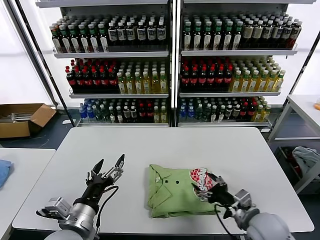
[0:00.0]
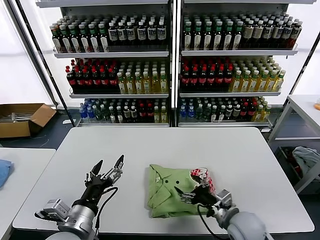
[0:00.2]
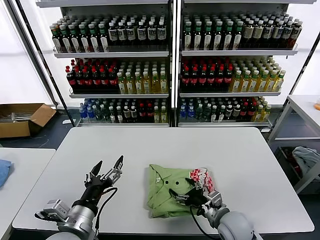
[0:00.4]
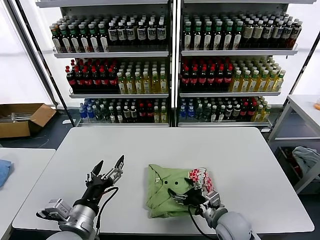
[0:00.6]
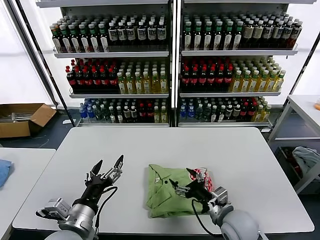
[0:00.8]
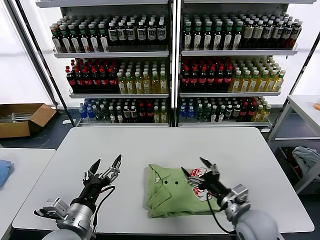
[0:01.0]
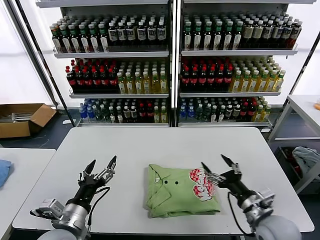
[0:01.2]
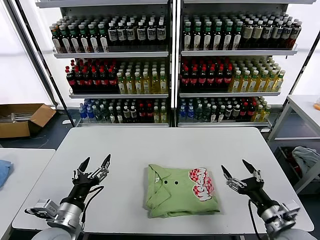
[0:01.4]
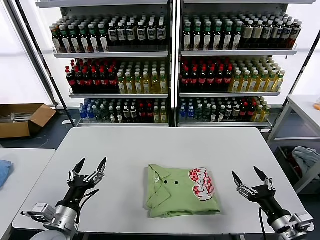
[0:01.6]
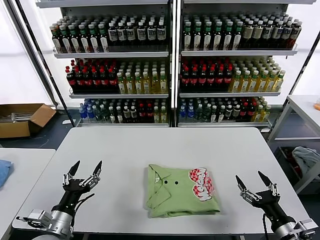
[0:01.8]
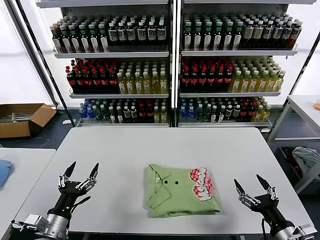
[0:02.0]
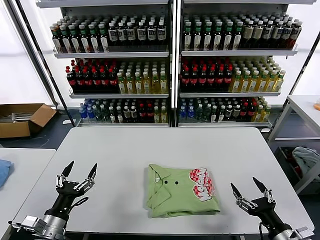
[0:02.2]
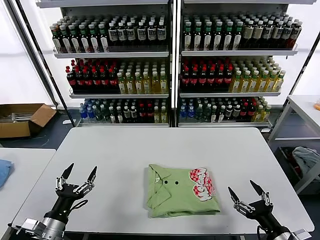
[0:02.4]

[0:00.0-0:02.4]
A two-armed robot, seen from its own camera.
Task of the whole recording: fold and organize the clothes.
0:00.0 to 0:01.2: The right gripper moves approximately 10 cm to the left and comes back.
0:01.2 to 0:02.4: The right gripper travels backward and to the right by roughly 10 cm. Meanwhile the left gripper goes about 10 cm to the left and downward.

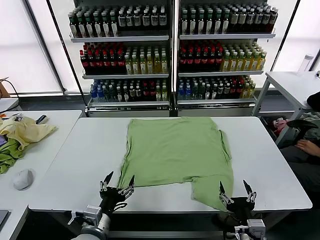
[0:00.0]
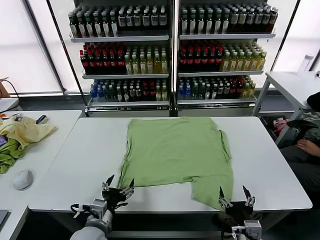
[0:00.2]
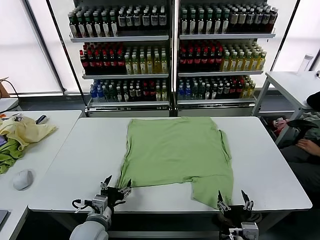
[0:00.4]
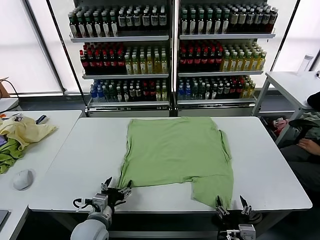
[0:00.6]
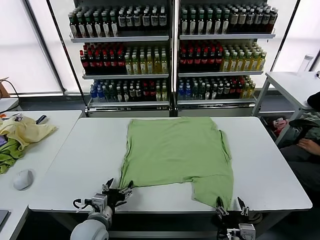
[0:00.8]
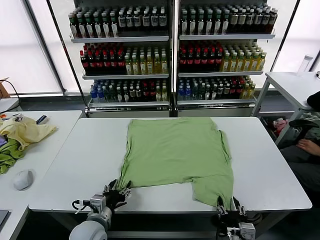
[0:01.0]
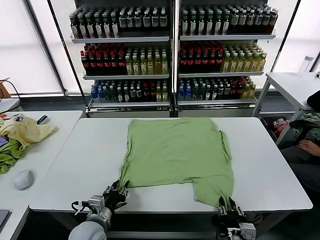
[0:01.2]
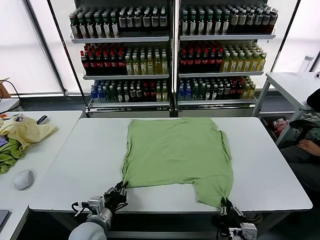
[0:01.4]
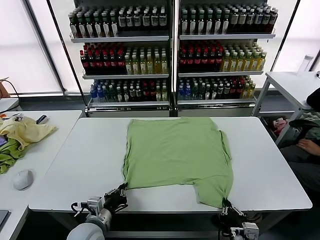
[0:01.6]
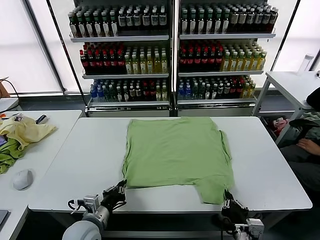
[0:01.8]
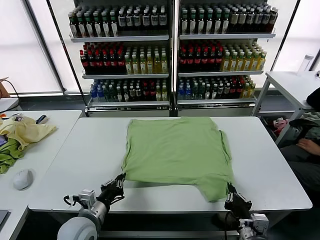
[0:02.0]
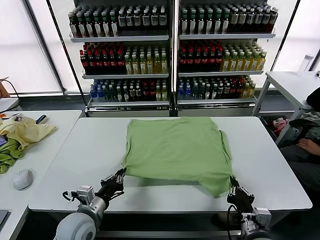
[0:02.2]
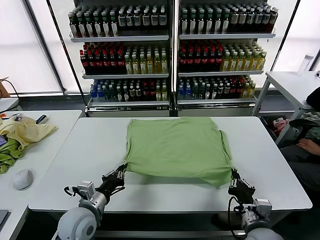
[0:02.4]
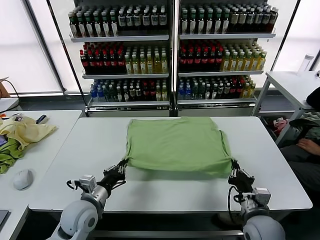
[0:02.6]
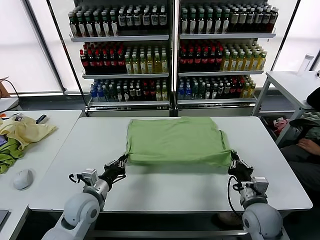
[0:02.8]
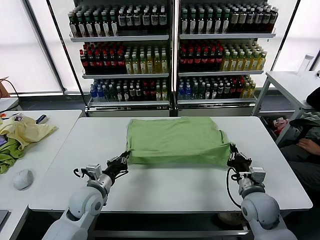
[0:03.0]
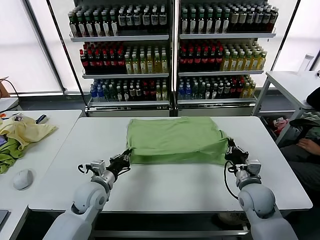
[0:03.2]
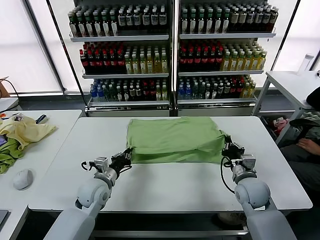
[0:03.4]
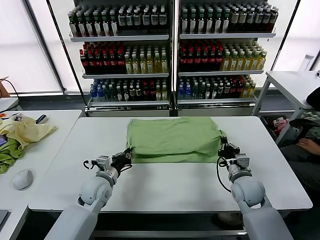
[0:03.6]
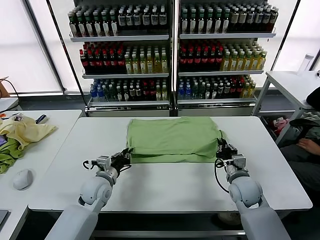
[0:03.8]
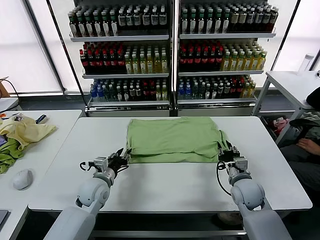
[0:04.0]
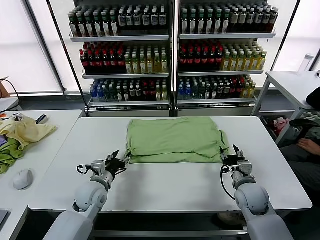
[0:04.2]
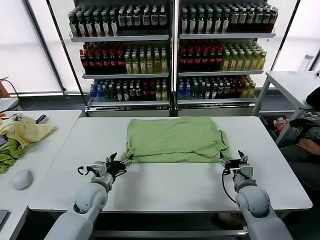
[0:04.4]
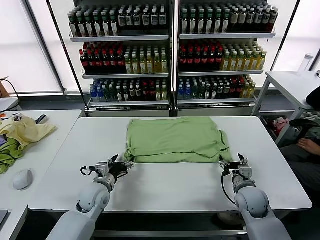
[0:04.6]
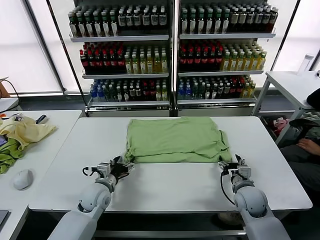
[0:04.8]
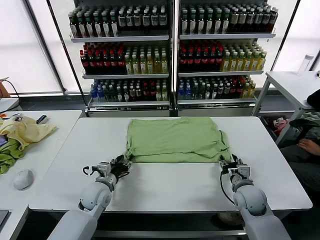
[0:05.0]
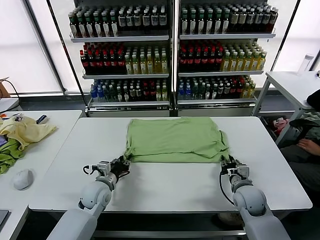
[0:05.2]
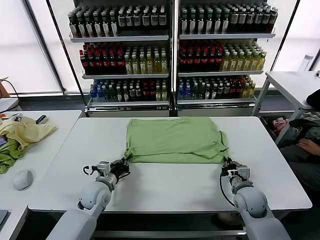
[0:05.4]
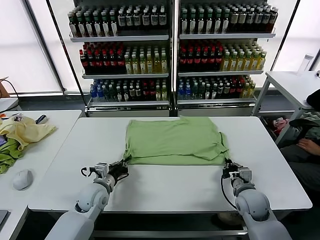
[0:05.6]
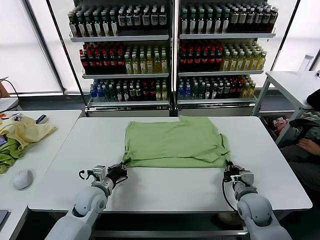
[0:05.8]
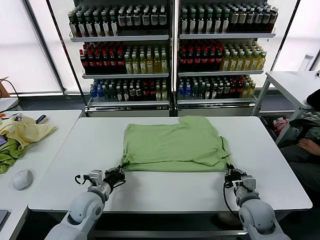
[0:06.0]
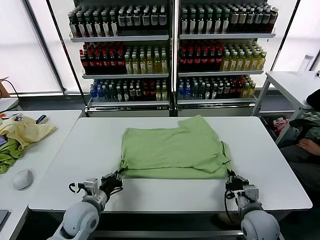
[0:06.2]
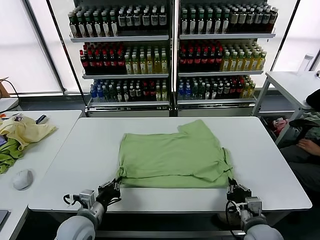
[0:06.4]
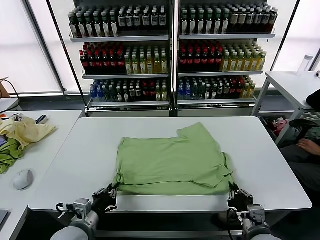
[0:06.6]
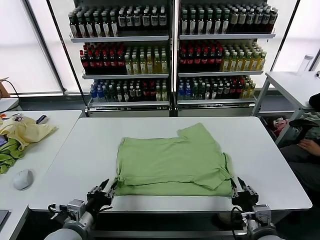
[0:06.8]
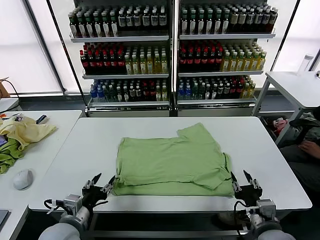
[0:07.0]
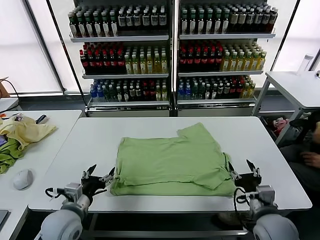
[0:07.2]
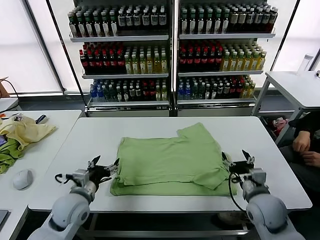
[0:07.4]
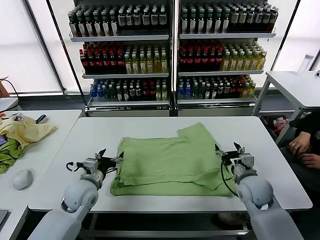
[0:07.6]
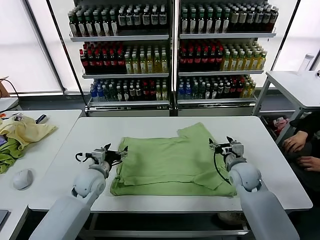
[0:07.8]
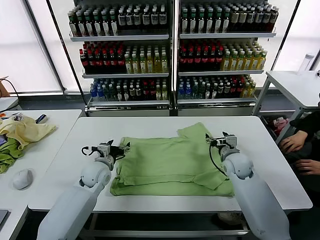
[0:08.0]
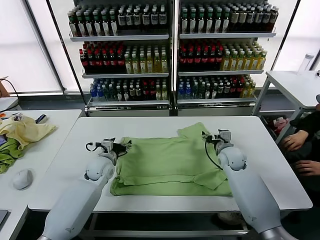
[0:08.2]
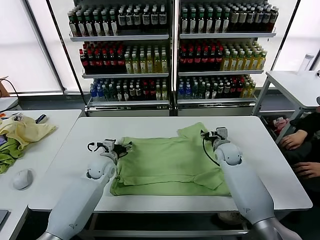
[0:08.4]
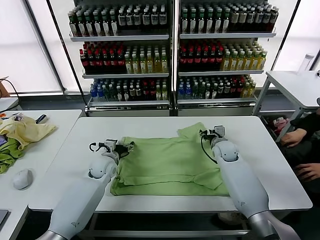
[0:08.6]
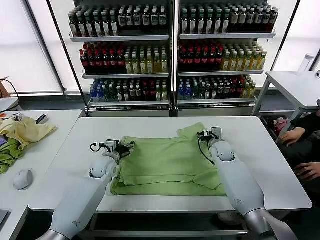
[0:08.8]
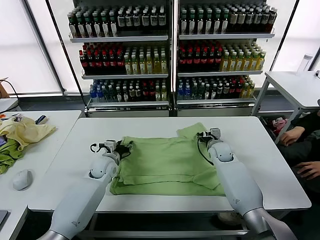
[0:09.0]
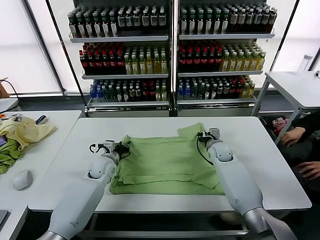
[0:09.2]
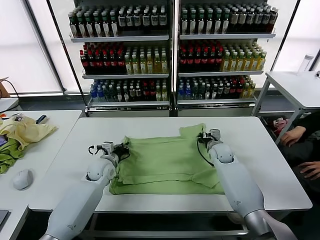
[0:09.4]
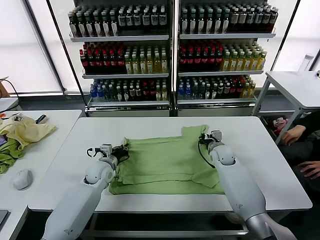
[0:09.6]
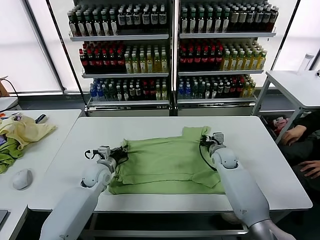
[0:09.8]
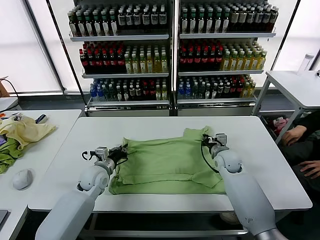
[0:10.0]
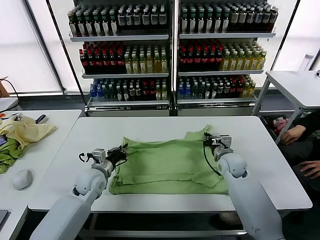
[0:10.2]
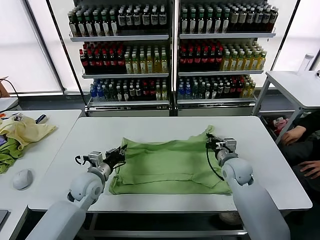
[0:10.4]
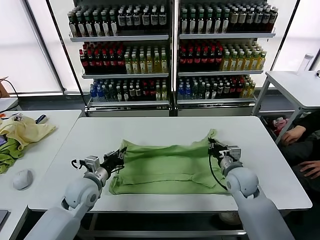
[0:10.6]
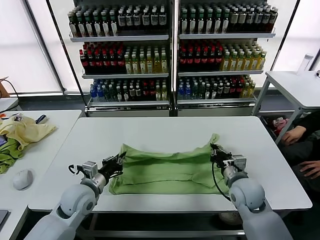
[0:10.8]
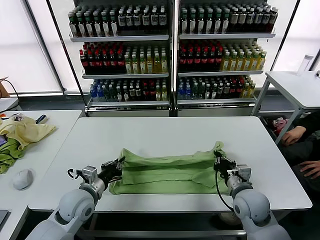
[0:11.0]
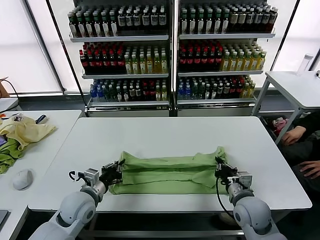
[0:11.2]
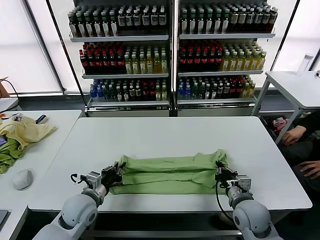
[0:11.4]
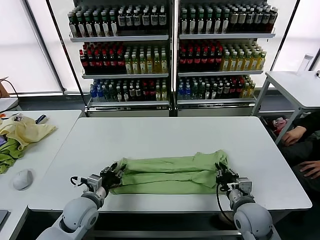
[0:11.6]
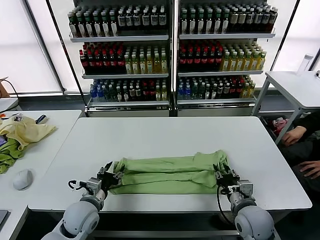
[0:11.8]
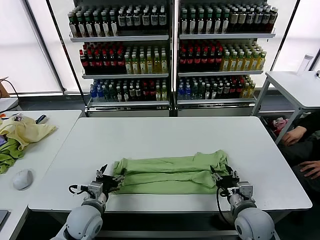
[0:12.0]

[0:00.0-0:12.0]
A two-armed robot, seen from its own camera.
Task of the whole recording: fold and organize the clothes.
Step, 0:00.0 to 0:01.4: use both grippers simultaneously to clamp the lower edge of the clothing fabric.
Step, 0:01.8 to 0:04.0: use both grippers to drag the lower edge of the fabric forward and fold it over the upper edge.
Step, 0:04.2 to 0:06.8: Drag the clothes downward with both gripper.
Step, 0:07.0 to 0:09.6: use both grippers simultaneously to clamp the upper edge of the clothing fabric.
Step, 0:09.8 to 0:11.6: use both grippers to drag the upper edge of the fabric backward and fold it over the lower edge.
0:01.6 to 0:03.0: The right gripper is displaced forward by about 15 cm, while the left gripper is displaced forward by some 10 cm.
0:03.0 to 0:04.4: The right gripper opens, while the left gripper opens.
0:04.4 to 0:06.0: The left gripper closes up, while the right gripper moves backward, some 5 cm, and closes up.
0:06.0 to 0:07.6: The left gripper moves approximately 15 cm backward and comes back, and opens its fingers, while the right gripper shifts roughly 10 cm forward, and opens.
0:07.6 to 0:09.0: Both grippers travel together forward, roughly 15 cm. The right gripper closes up, while the left gripper closes.
0:09.0 to 0:10.4: Both grippers travel together backward, approximately 10 cm. The left gripper closes, while the right gripper closes up.
0:10.4 to 0:12.0: The left gripper goes roughly 10 cm backward, and opens its fingers; the right gripper travels backward by roughly 15 cm, and opens its fingers.

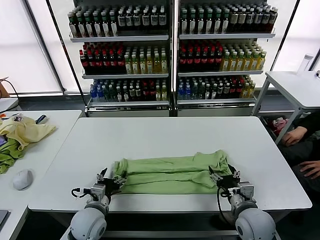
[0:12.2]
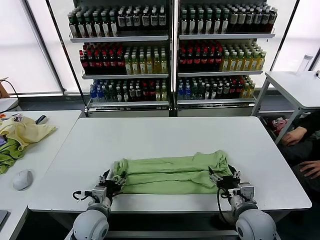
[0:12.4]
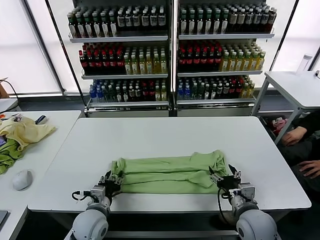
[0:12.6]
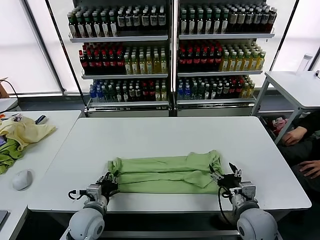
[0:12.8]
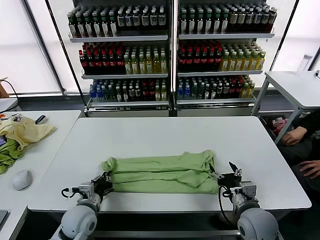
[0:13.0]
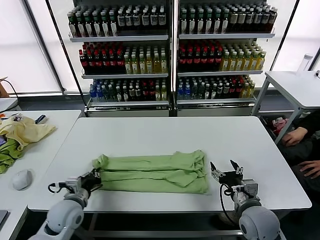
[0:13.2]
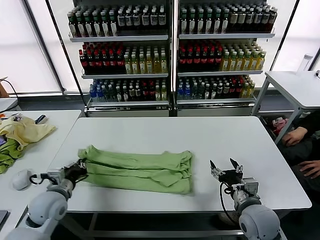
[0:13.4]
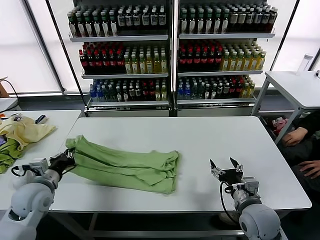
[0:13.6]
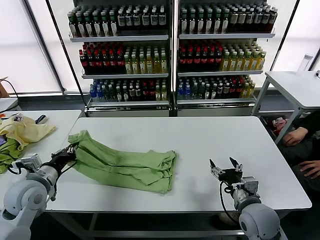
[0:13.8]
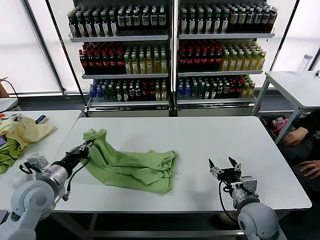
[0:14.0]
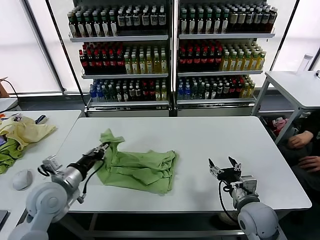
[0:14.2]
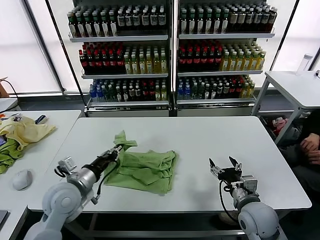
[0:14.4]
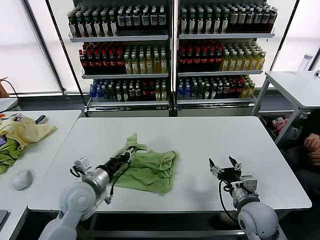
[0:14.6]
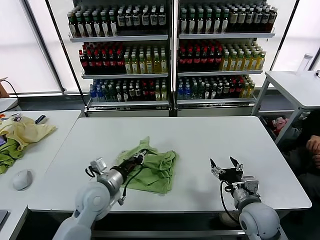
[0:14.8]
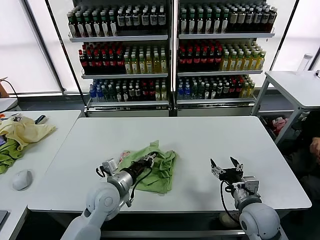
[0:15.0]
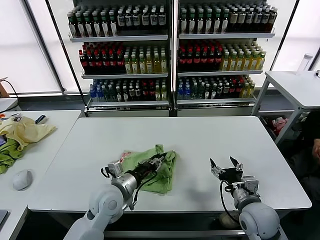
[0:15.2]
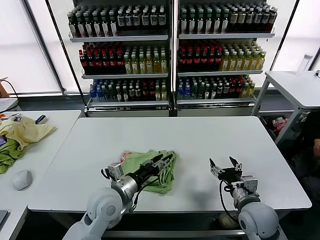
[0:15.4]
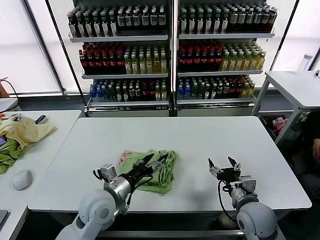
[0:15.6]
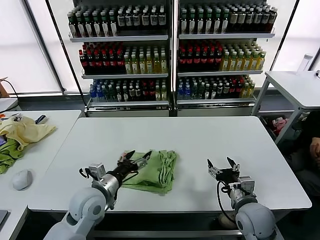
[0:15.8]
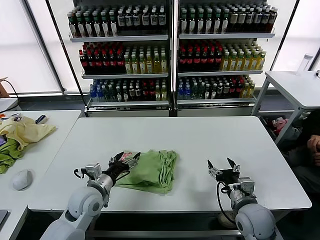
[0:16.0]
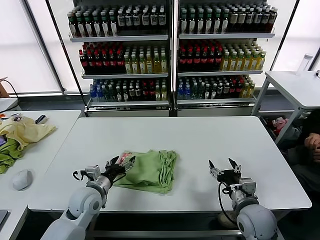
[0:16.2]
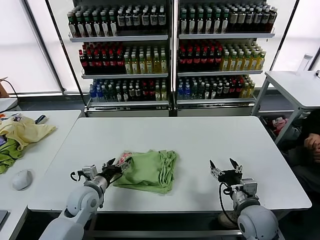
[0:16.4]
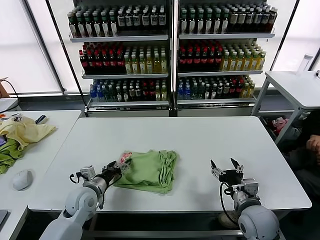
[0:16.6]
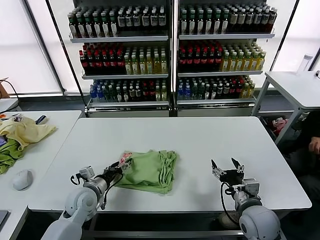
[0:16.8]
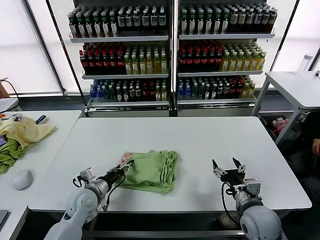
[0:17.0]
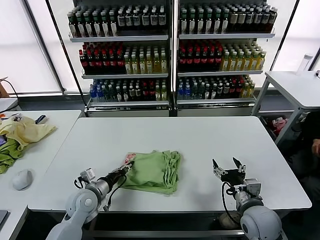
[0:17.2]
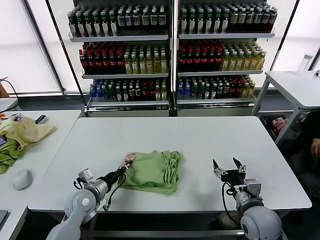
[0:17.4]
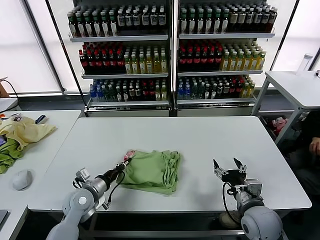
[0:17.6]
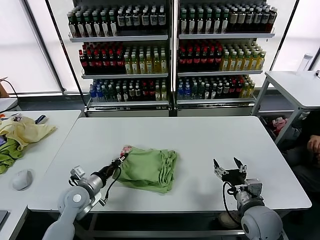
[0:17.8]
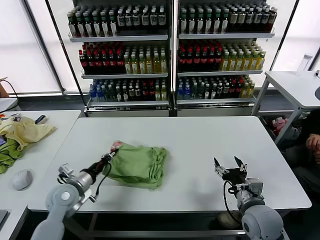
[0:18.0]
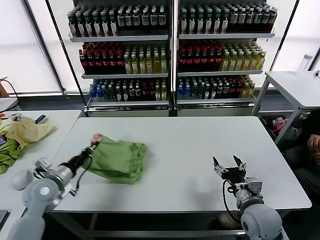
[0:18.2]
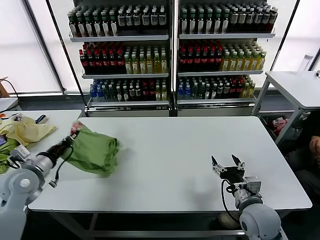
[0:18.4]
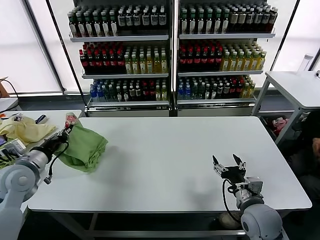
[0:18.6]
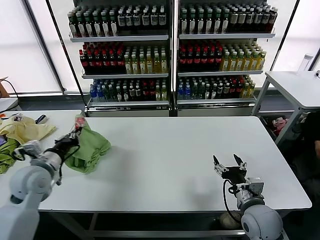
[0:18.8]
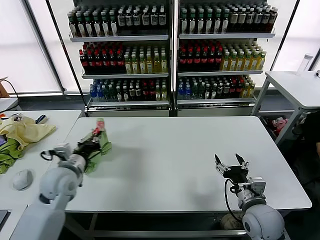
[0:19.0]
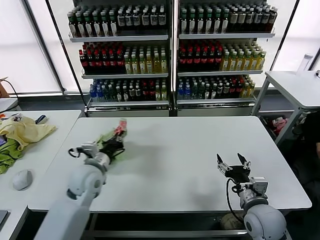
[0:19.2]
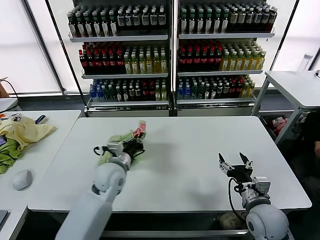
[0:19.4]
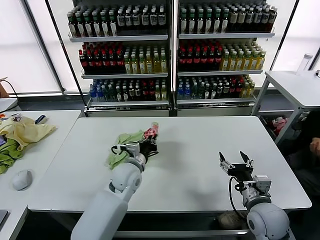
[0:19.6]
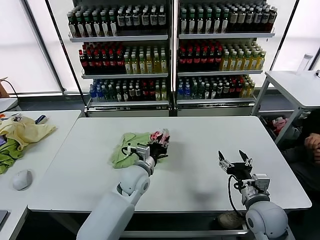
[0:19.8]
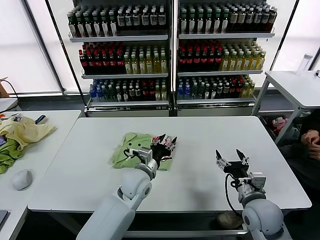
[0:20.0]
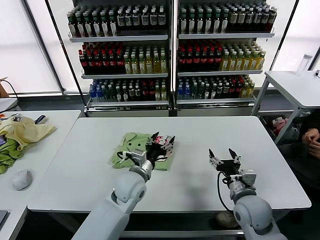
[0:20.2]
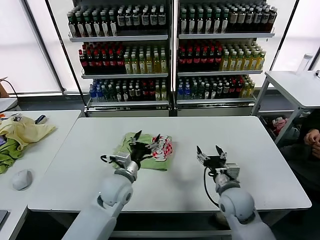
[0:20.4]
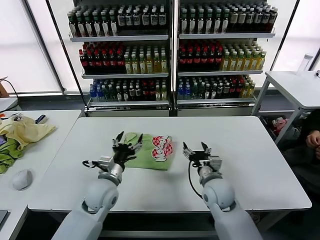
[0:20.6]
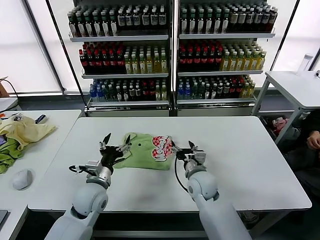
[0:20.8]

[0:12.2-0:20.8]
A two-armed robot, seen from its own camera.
Task of the whole recording: fold and organize the clothes.
Step, 0:12.2 to 0:13.0: use the left gripper to clamp the left edge of the fabric.
Step, 0:13.2 to 0:15.2: use the left gripper to drag the left edge of the fabric to the left and folds it over the right edge.
Step, 0:15.4 to 0:19.8: Flip the folded clothes over with left gripper.
0:12.2 to 0:13.6: The left gripper is displaced to the left and upward by roughly 15 cm, and closes.
0:13.6 to 0:15.0: The left gripper goes roughly 20 cm to the right.
0:15.0 to 0:16.6: The left gripper goes roughly 10 cm to the left and downward, and opens its fingers.
0:16.6 to 0:18.0: The left gripper closes its fingers.
0:18.0 to 0:19.4: The left gripper goes approximately 15 cm to the right and upward.
0:19.4 to 0:20.8: The right gripper heads to the left and forward, covering about 20 cm. Meanwhile the left gripper travels to the right and back again, about 10 cm each way, and opens its fingers.
